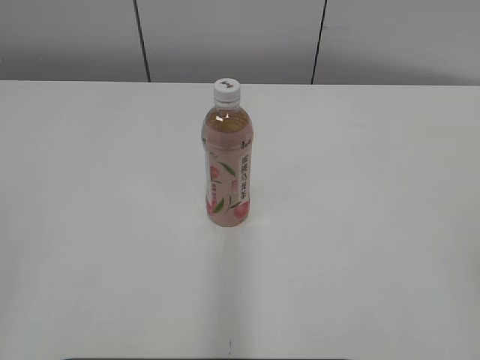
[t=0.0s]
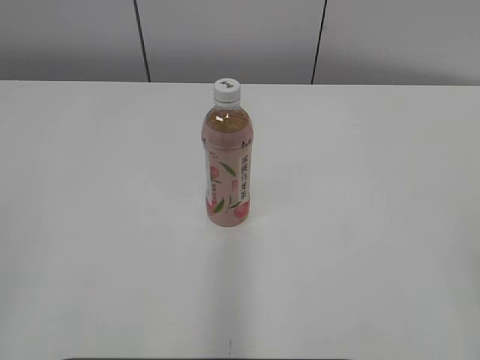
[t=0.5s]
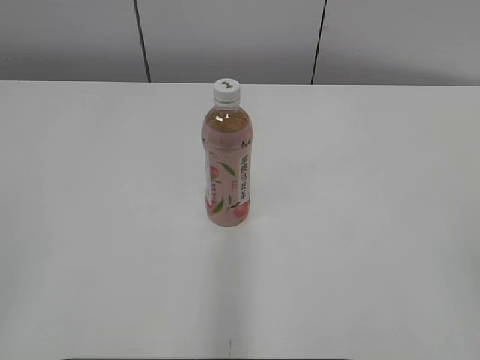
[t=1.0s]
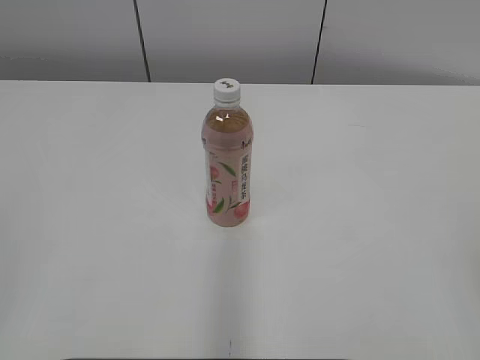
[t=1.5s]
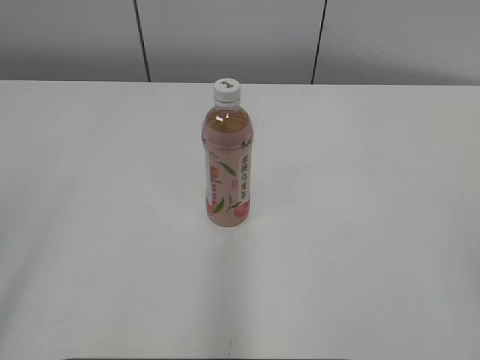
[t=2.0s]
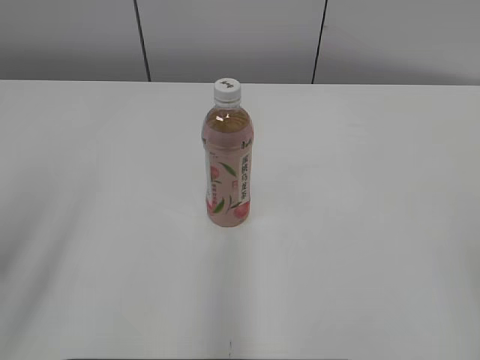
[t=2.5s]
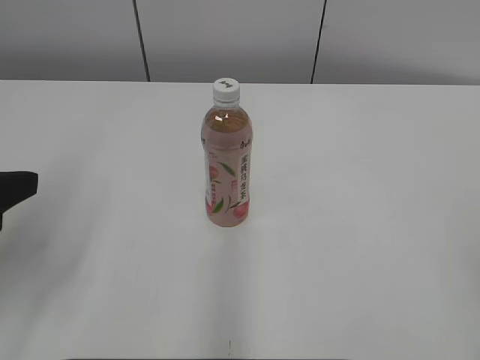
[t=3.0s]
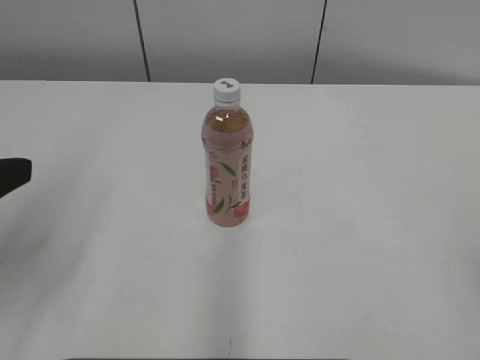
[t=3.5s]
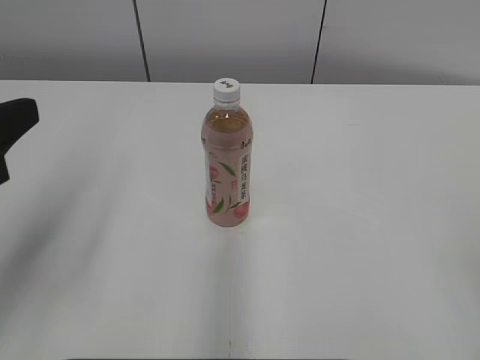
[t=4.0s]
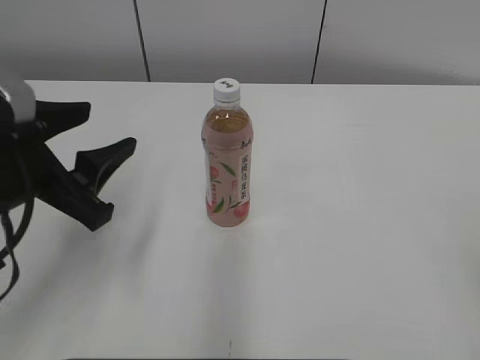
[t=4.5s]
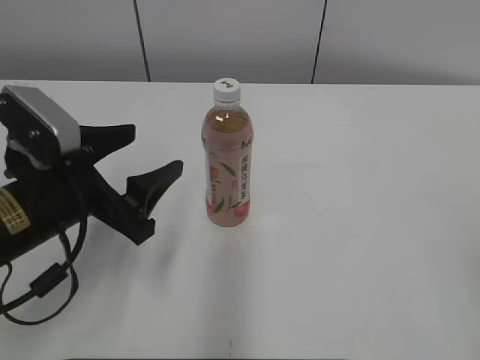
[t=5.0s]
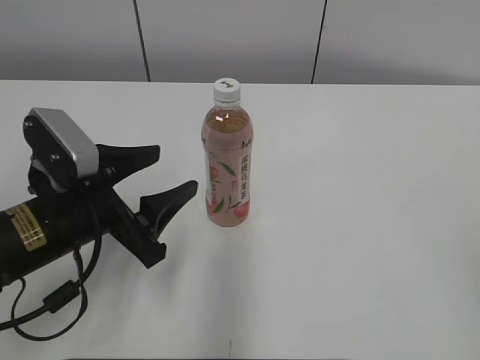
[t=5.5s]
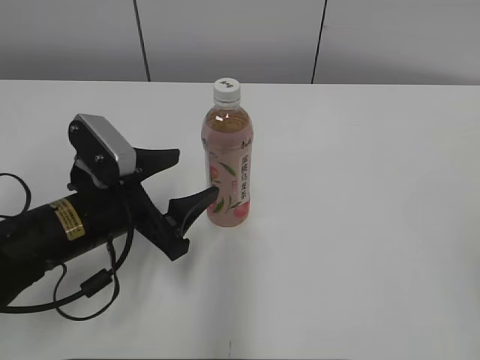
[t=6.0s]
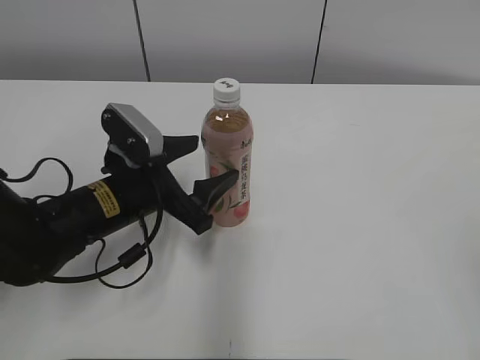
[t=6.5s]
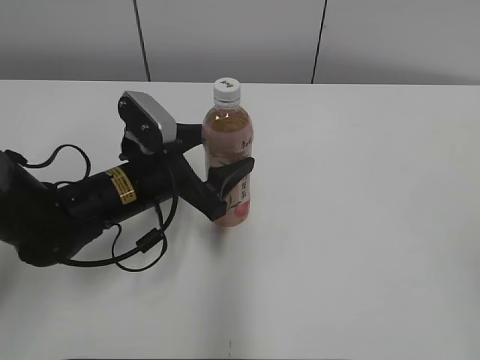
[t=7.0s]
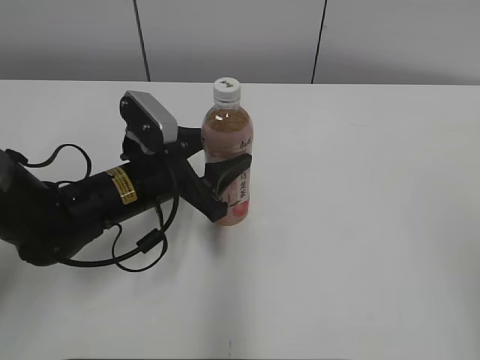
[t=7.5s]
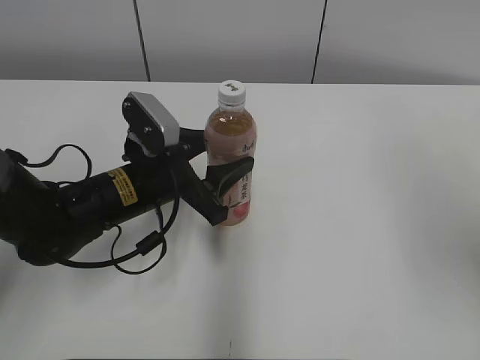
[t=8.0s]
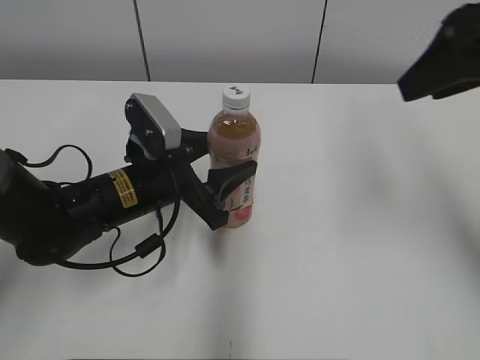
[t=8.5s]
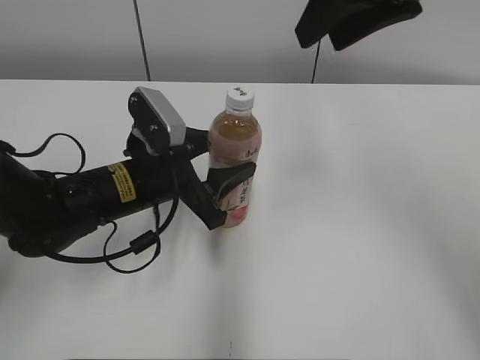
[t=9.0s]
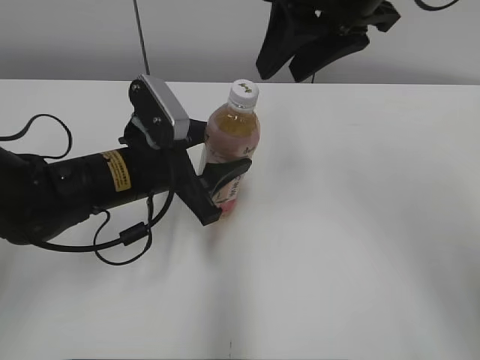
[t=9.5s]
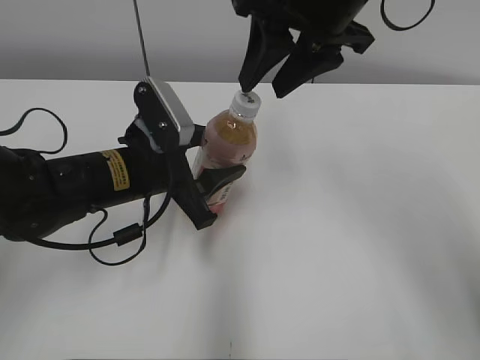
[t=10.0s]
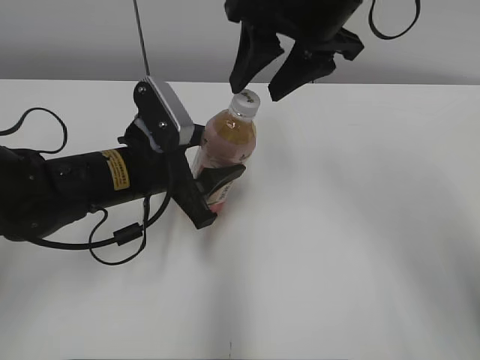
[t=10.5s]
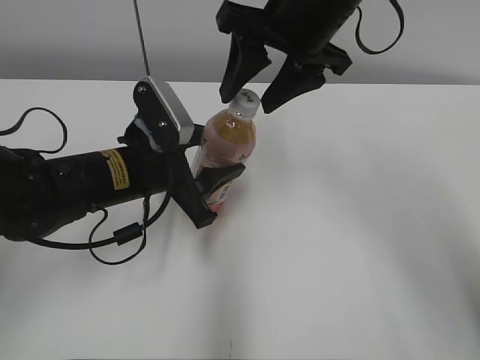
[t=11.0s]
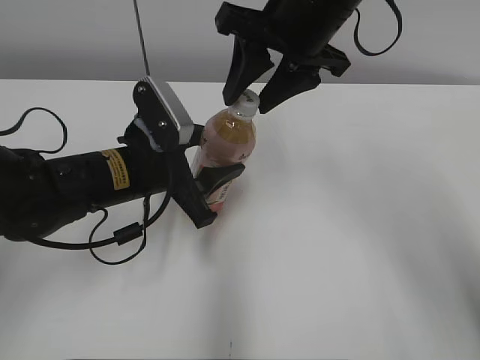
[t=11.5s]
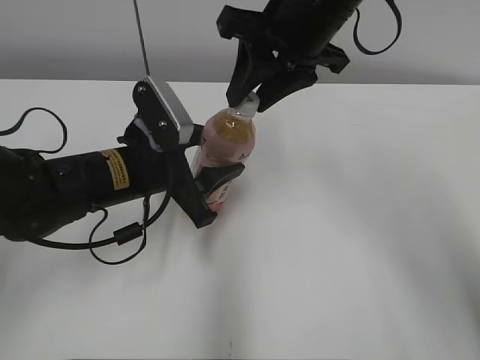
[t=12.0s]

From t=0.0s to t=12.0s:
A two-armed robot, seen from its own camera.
Step, from t=0.0s to t=7.5s: Grab the Peach Oolong Tea with the left hand.
From t=2.0s to t=4.0s: The left gripper goes approximately 15 cm forward.
From t=4.0s to t=6.0s: The left gripper goes roughly 20 cm downward, to the right and forward.
From t=6.0s to t=8.0s: The left gripper heads forward, covering roughly 5 cm; the right gripper heads forward and upward, covering some 15 cm.
From t=8.0s to t=10.0s: The right gripper goes about 25 cm forward and to the left.
From t=10.0s to t=12.0s: The grippers stay close to where they were, moving slightly.

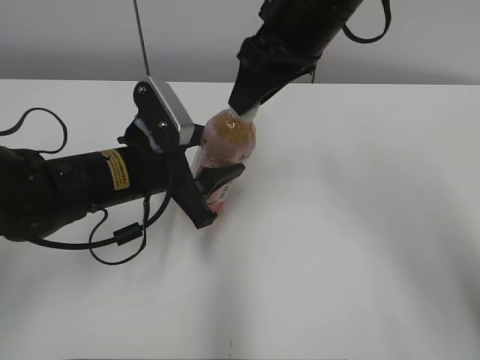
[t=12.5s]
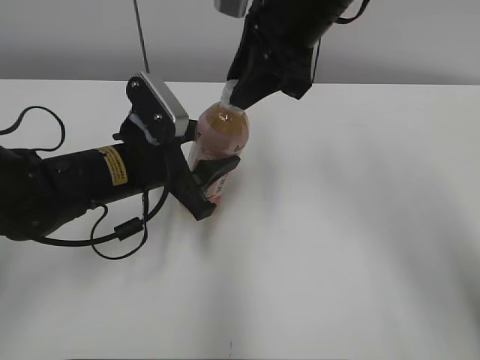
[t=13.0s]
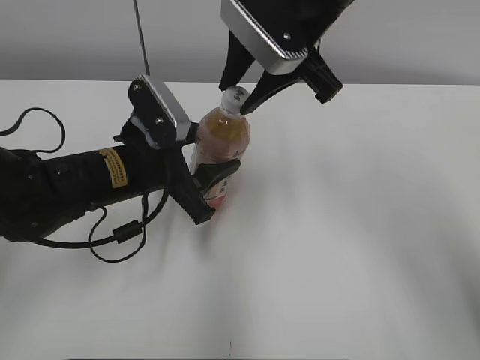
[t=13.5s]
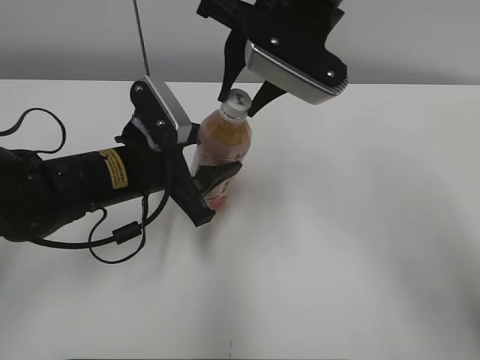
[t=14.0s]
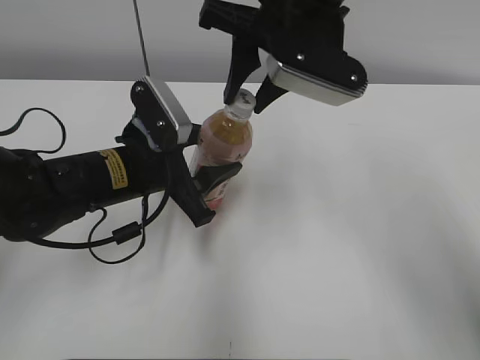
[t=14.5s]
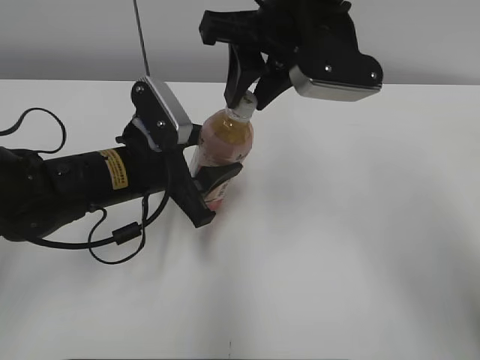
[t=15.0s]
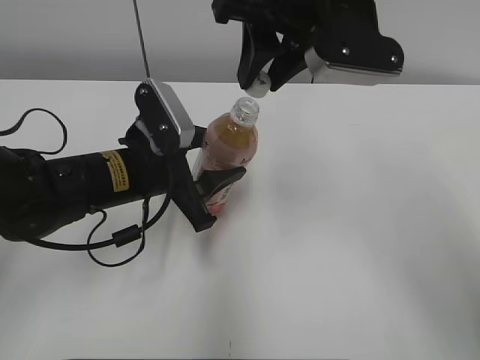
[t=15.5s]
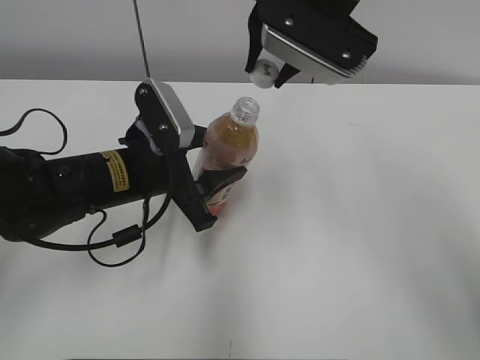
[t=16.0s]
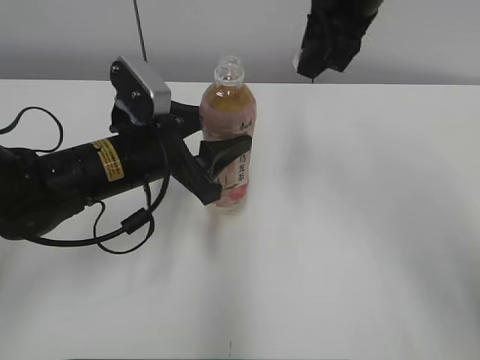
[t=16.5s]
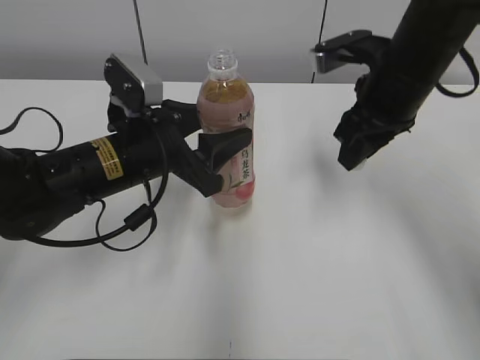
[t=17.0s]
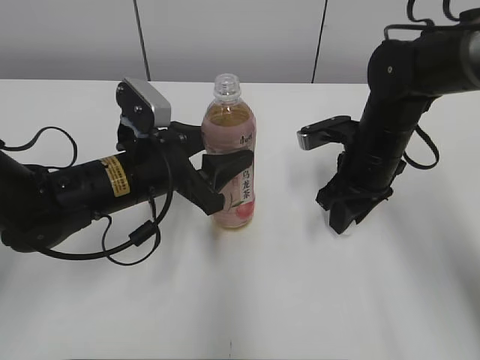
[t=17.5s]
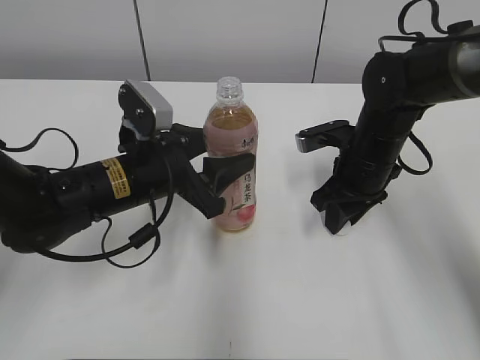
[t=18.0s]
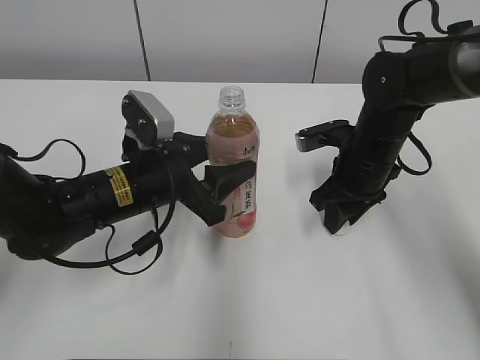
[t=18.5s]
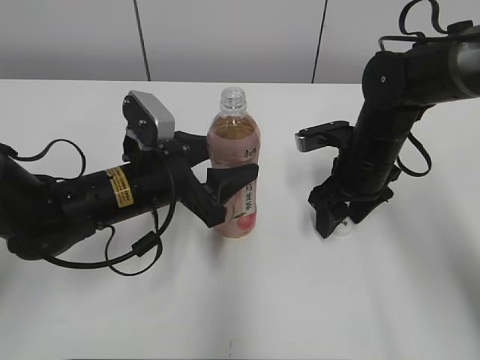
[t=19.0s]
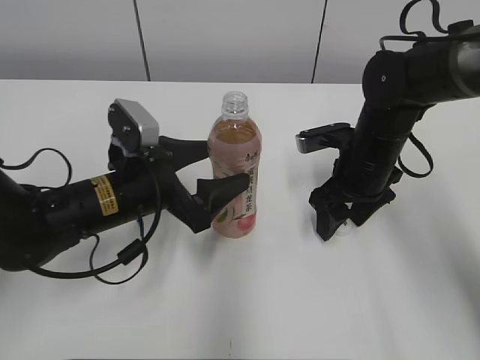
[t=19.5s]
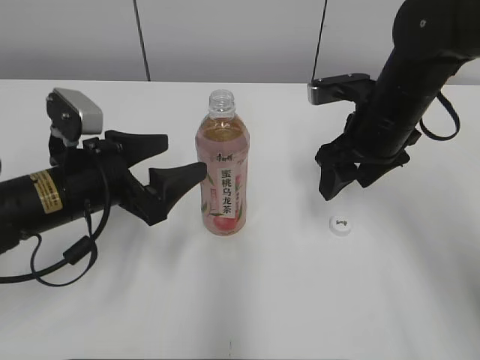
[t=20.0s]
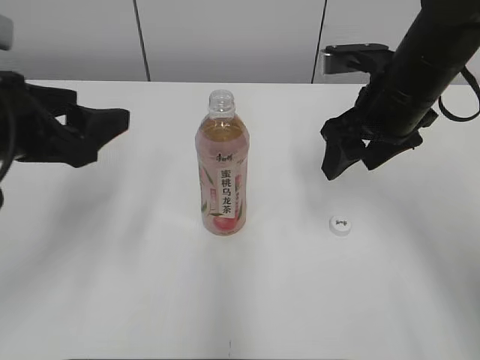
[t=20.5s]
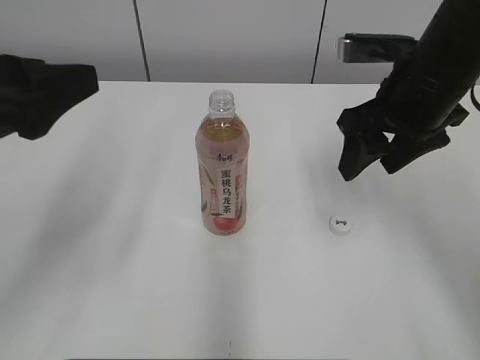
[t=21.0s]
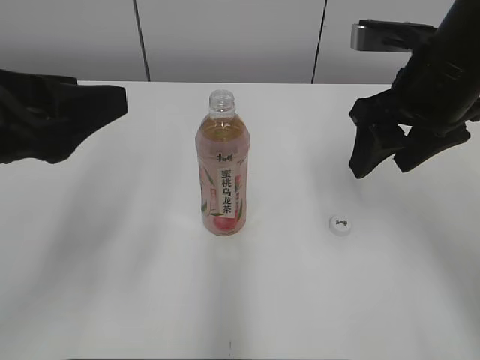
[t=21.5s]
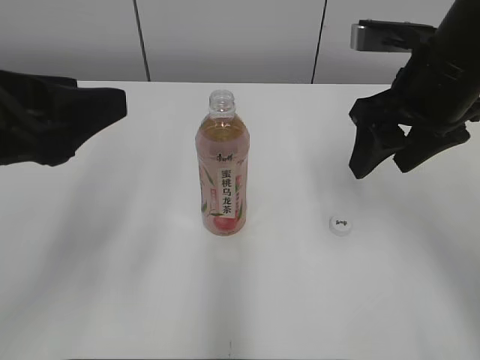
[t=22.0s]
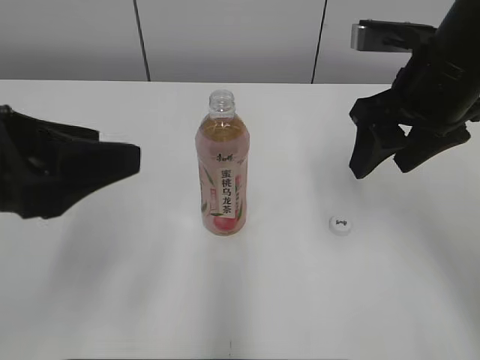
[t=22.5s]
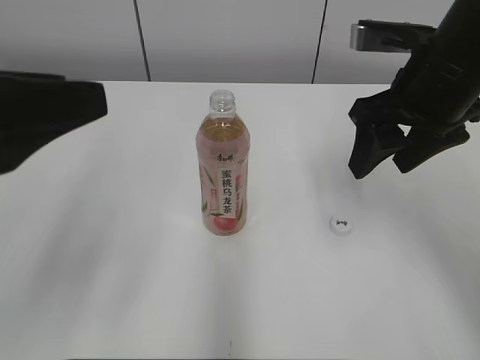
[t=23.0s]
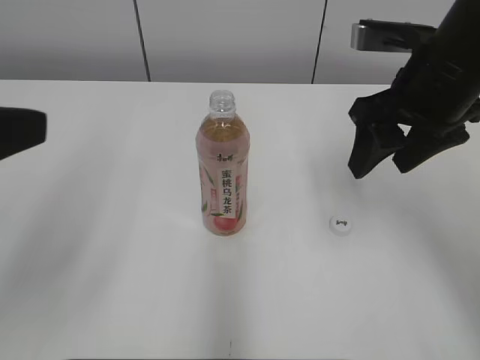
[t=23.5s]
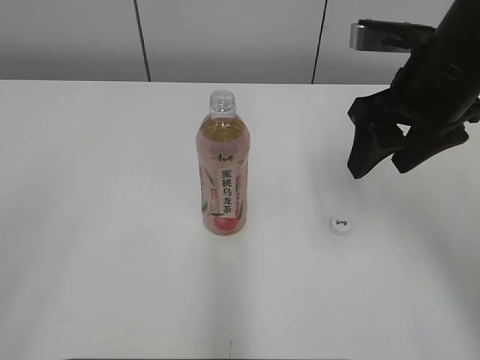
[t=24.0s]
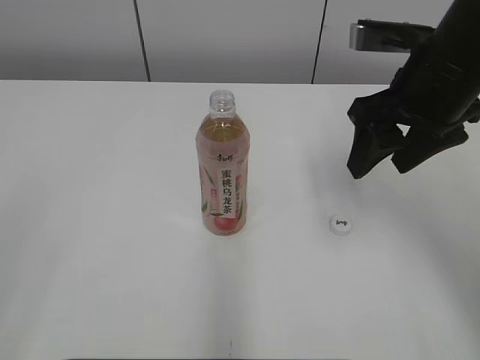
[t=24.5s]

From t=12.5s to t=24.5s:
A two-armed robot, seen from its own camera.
Step, from t=12.5s to t=15.0s: Secure the Peach Oolong Tea with the left hand.
Step, from t=15.5s to t=18.5s: Place the bottle cap on the right.
Step, from t=19.0s to t=19.5s: Place the Peach Oolong Tea with the left hand.
From t=14.5s to t=16.5s: The right gripper changes place by roughly 5 cm.
From t=16.5s to t=18.5s: The right gripper heads downward, covering roughly 20 cm.
From t=18.5s to t=20.5s: The right gripper moves upward, some 10 cm, and opens its fingers, while the left gripper moves upward, to the left and backward, about 15 cm, and opens up.
From t=20.5s to t=22.5s: The right gripper moves some 5 cm. Meanwhile the left gripper is displaced backward by roughly 10 cm.
From t=22.5s to t=24.5s: The left gripper shifts some 20 cm backward and to the left.

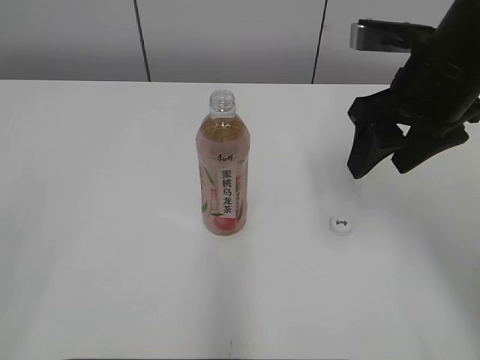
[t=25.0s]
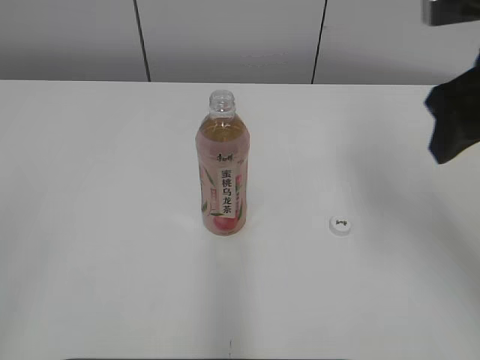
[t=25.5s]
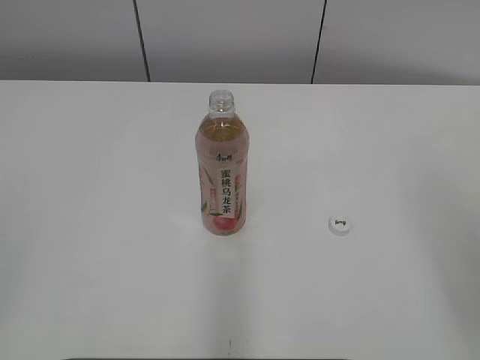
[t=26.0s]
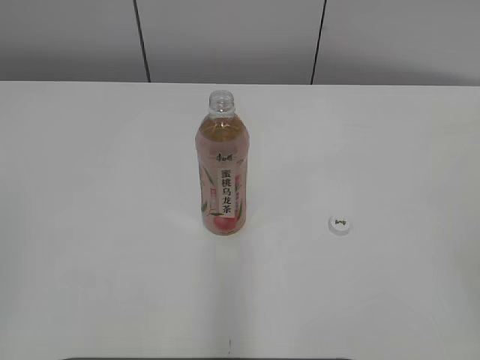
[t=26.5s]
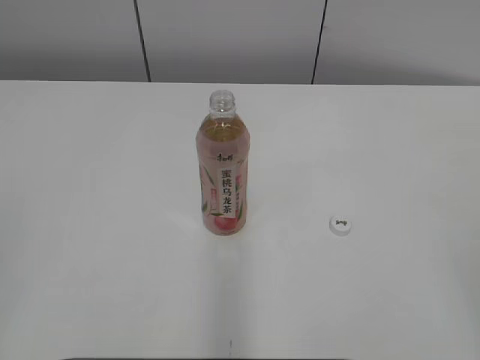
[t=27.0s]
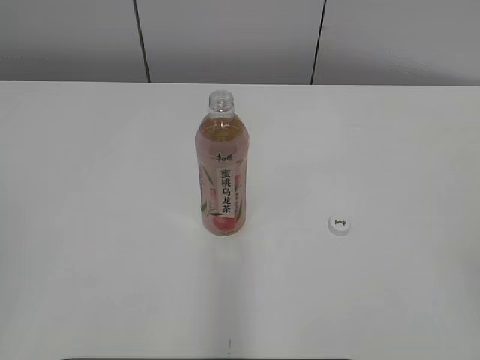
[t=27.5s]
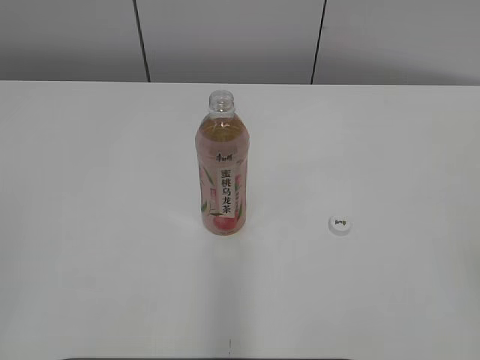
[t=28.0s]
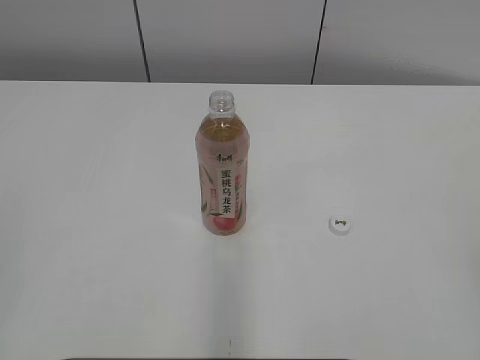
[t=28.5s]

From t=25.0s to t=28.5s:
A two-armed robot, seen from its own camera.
From t=25.0s to t=27.0s: The right gripper goes about 35 cm backward and to the right.
